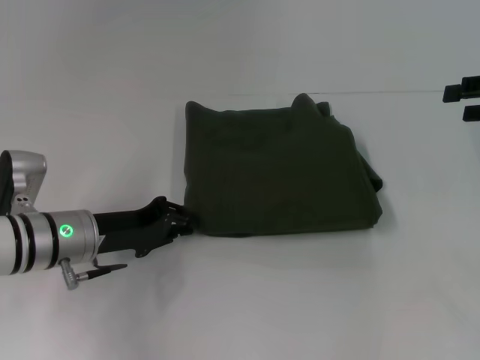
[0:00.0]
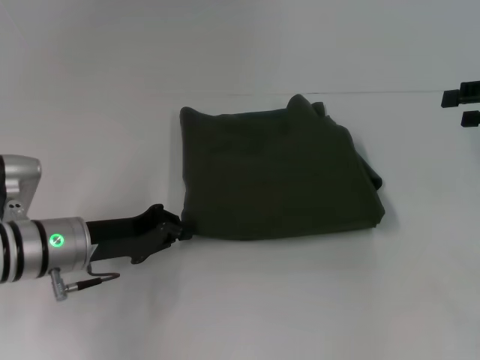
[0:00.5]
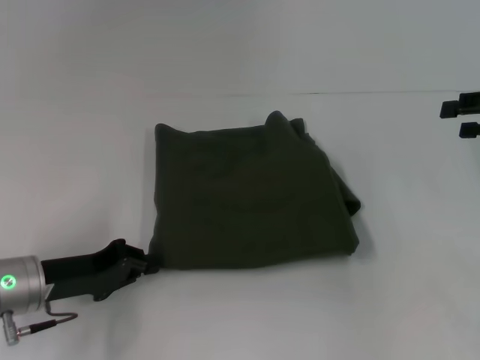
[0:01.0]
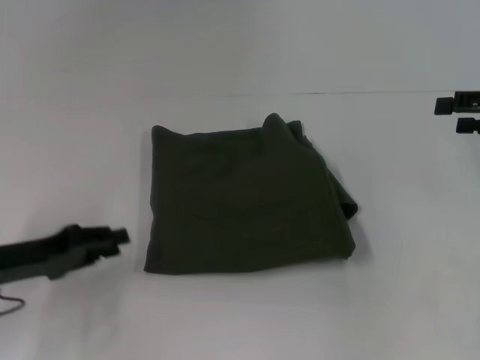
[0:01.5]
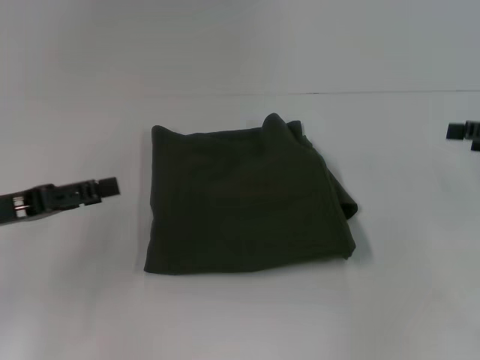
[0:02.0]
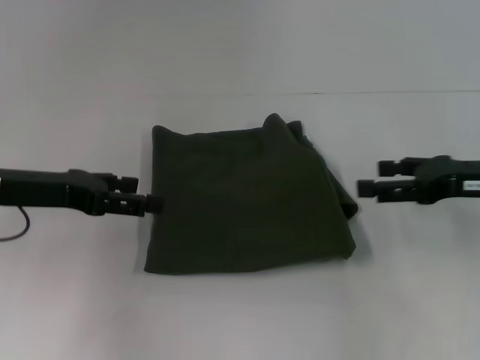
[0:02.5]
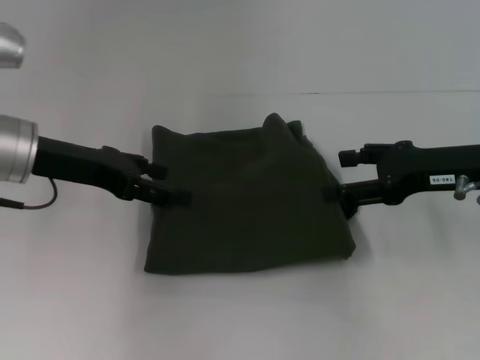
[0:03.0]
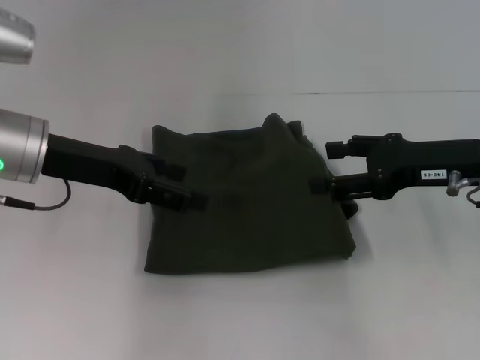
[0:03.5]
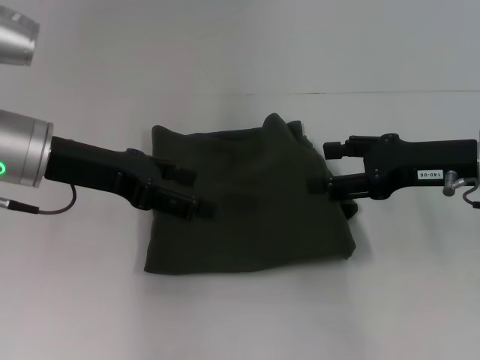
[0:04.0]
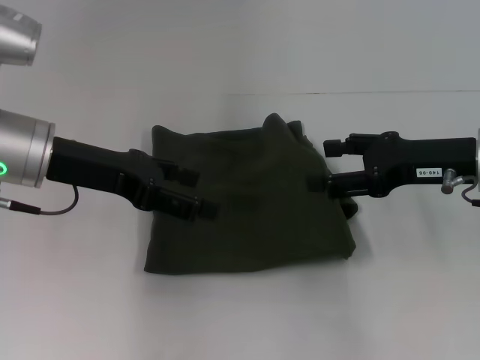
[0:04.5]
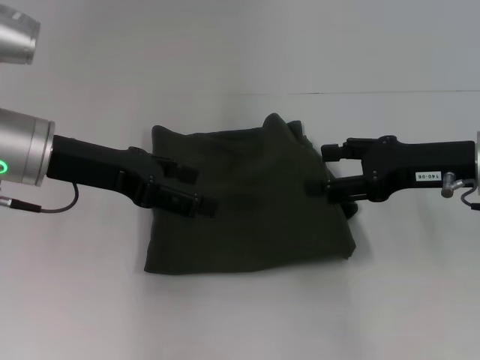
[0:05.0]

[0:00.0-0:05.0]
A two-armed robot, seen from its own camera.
0:00.0 to 0:02.5: The right gripper is displaced to the left, downward and backward by approximately 10 cm. Meanwhile the left gripper travels upward and to the left by about 10 cm, and opens its fingers.
0:02.5 to 0:05.0: The left gripper shifts roughly 5 cm to the right. Meanwhile the right gripper moves to the left, about 5 cm.
